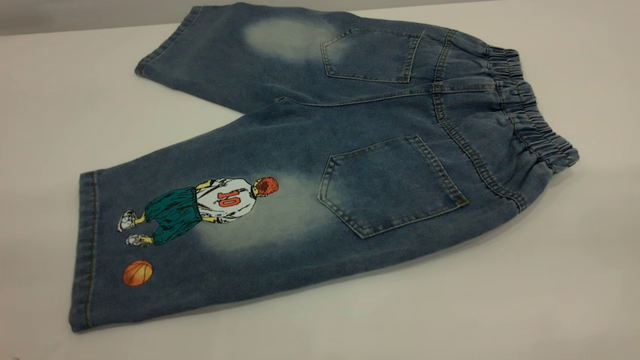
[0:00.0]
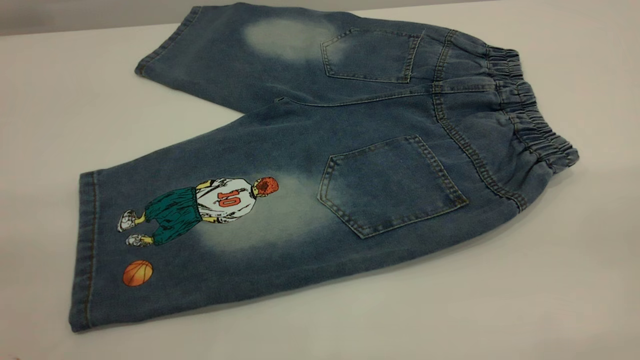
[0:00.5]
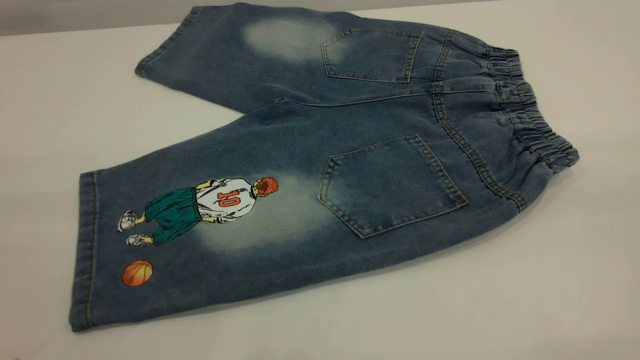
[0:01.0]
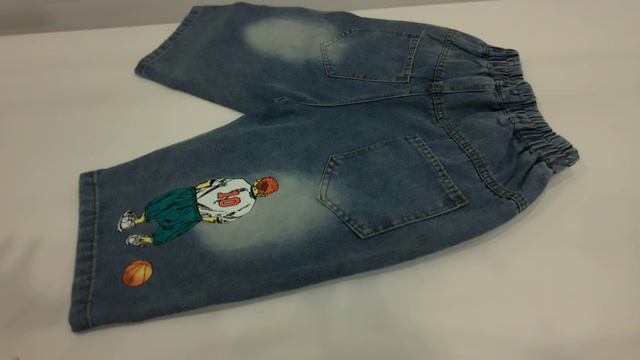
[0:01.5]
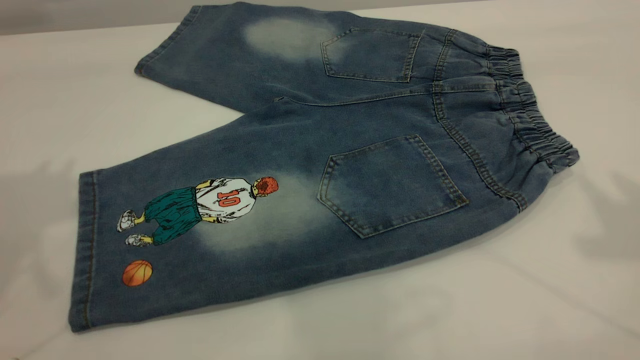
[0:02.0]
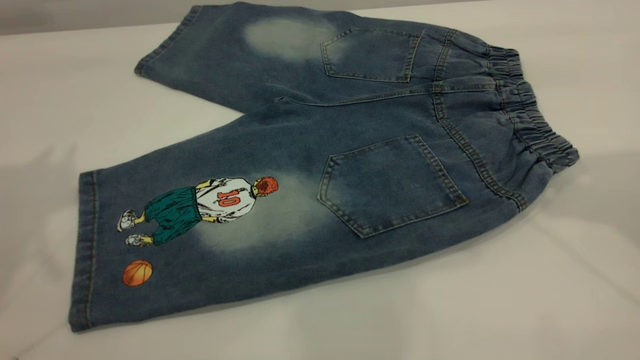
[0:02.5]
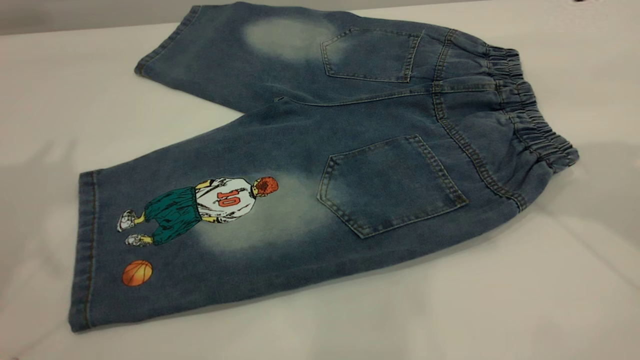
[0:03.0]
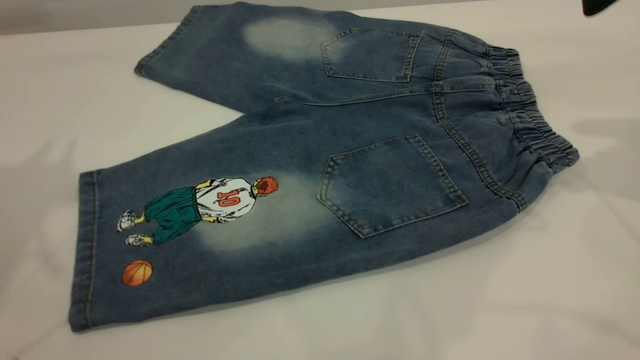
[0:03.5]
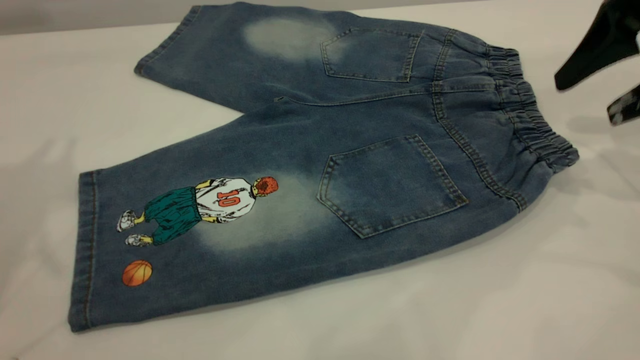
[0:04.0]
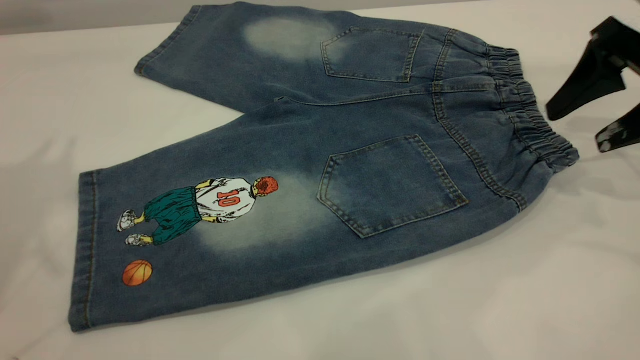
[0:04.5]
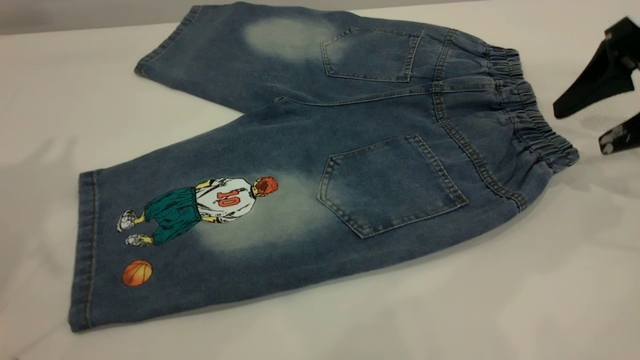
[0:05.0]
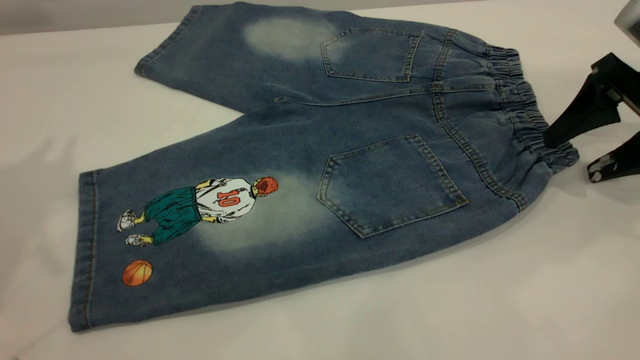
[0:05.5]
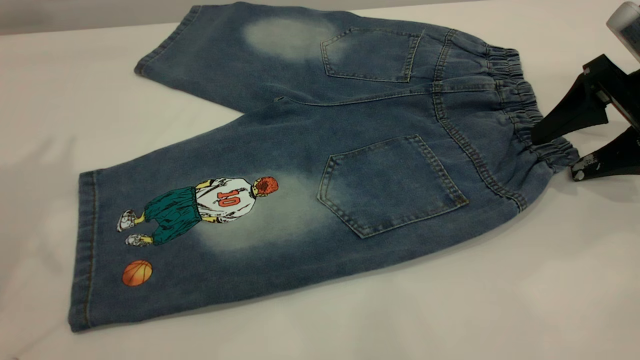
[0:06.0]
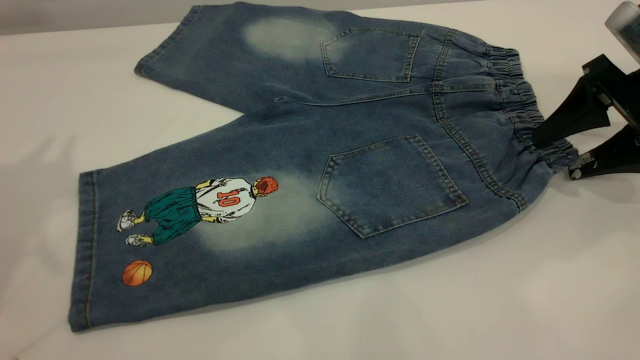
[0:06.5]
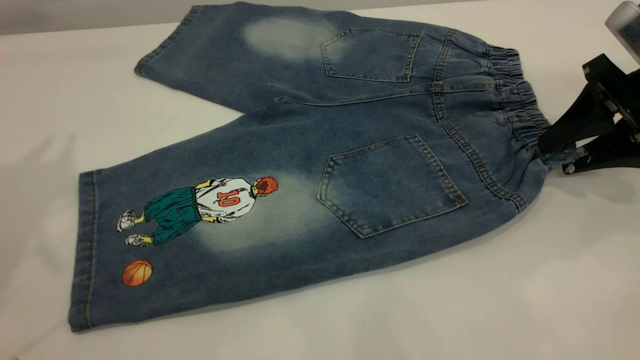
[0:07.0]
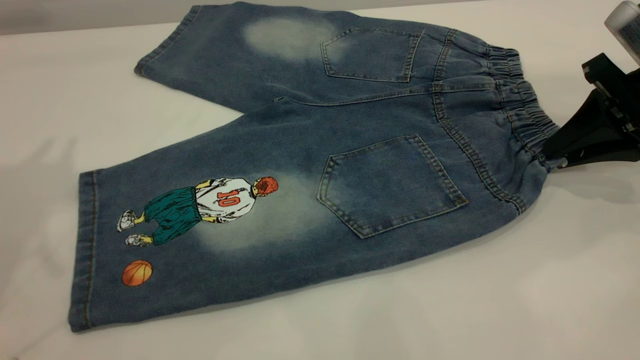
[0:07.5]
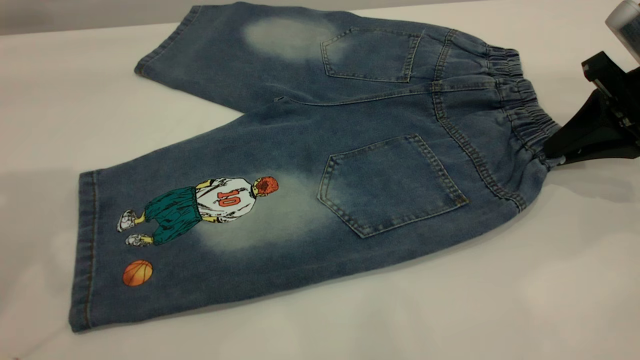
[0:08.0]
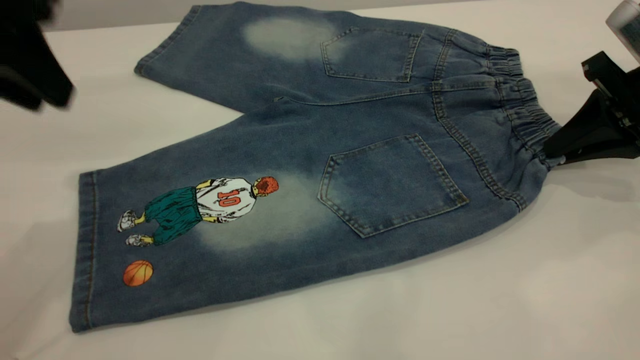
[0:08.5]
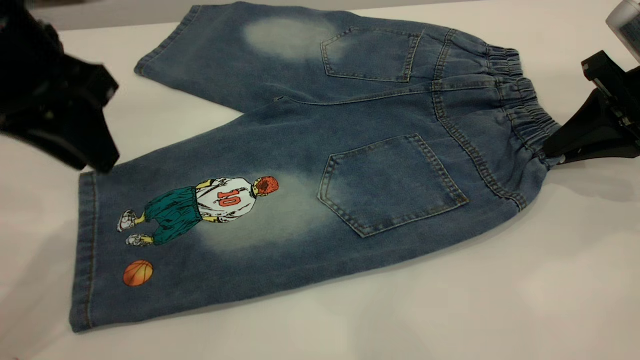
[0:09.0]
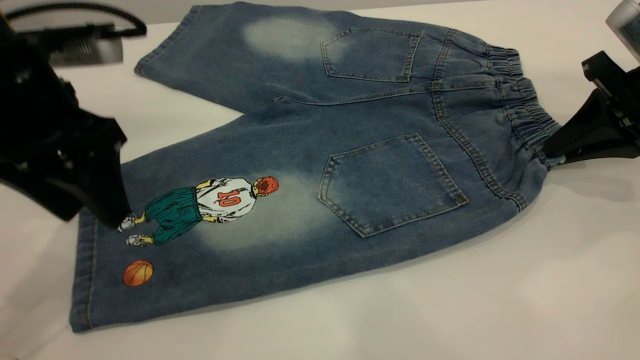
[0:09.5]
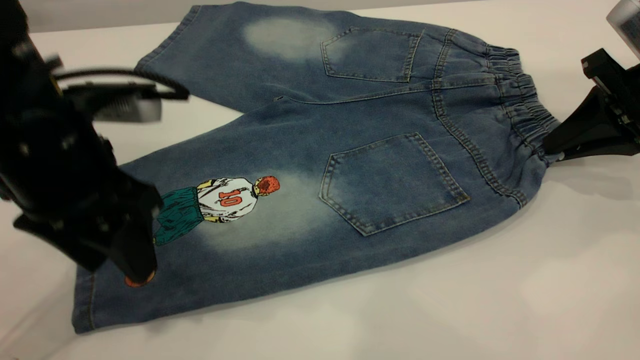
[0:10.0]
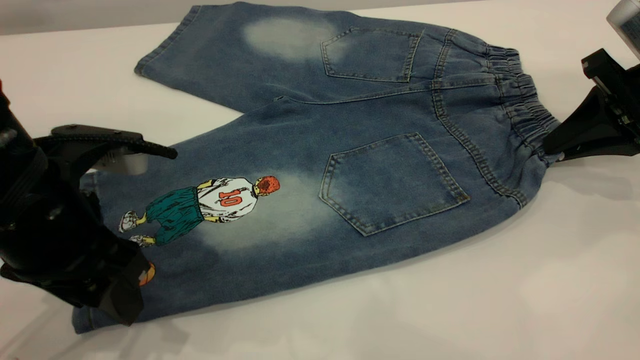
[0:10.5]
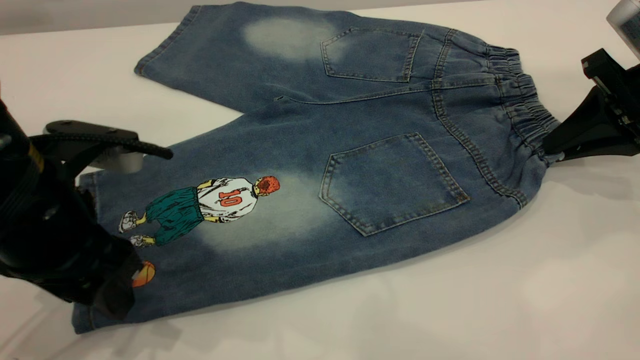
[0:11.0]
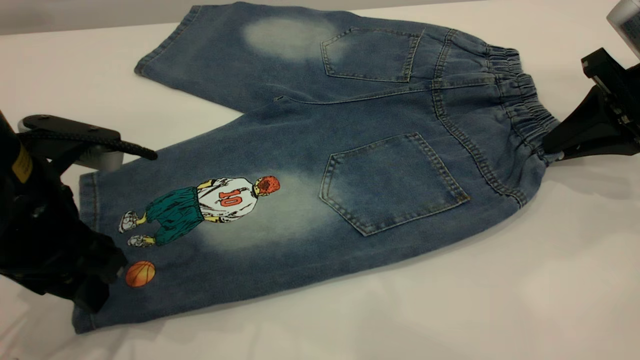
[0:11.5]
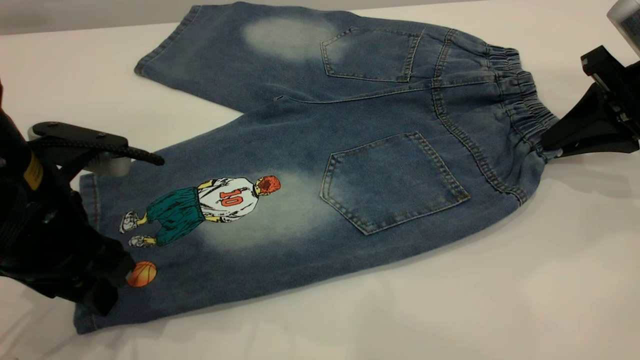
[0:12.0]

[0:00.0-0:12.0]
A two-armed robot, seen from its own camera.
0:02.0 to 0:04.0: The right gripper is displaced downward and forward by about 25 cm, and opens its fingers.
0:04.0 to 0:06.0: The right gripper shifts approximately 5 cm downward.
0:06.0 to 0:08.0: The right gripper closes its fingers.
0:08.0 to 0:10.0: The left gripper moves downward and to the right, some 20 cm, and opens up.
0:10.0 to 0:12.0: The grippers make only small movements.

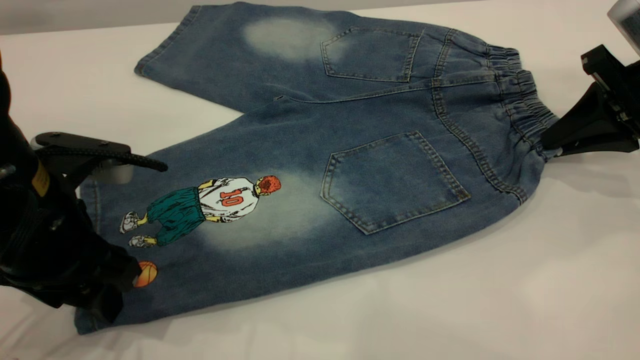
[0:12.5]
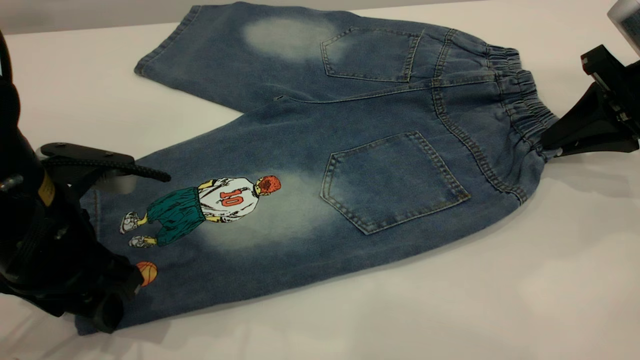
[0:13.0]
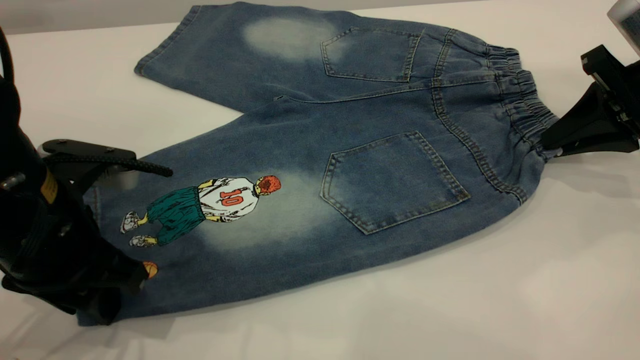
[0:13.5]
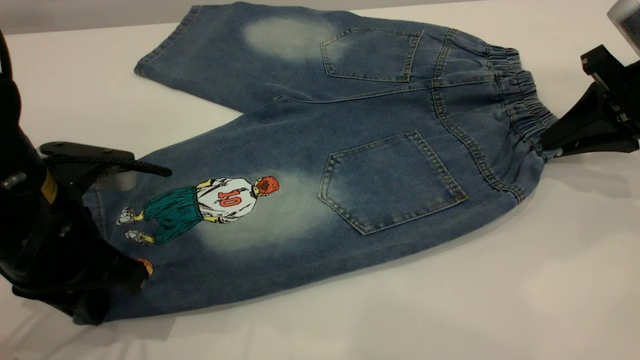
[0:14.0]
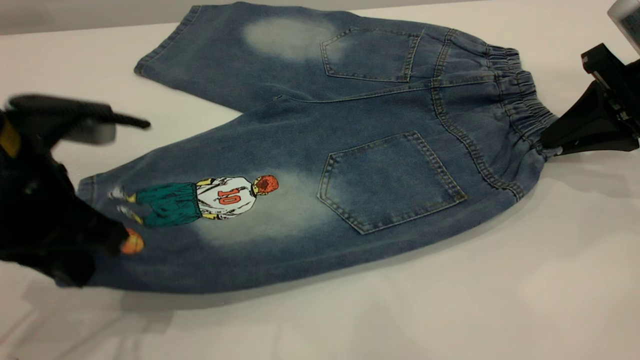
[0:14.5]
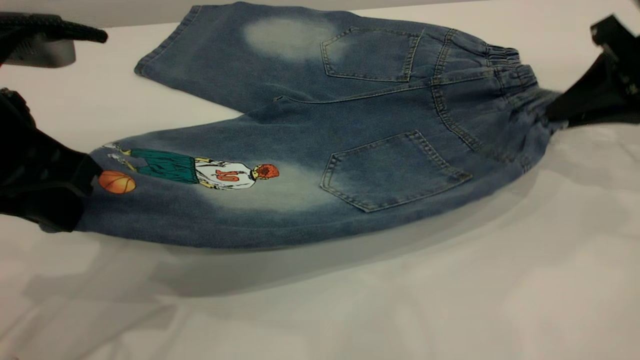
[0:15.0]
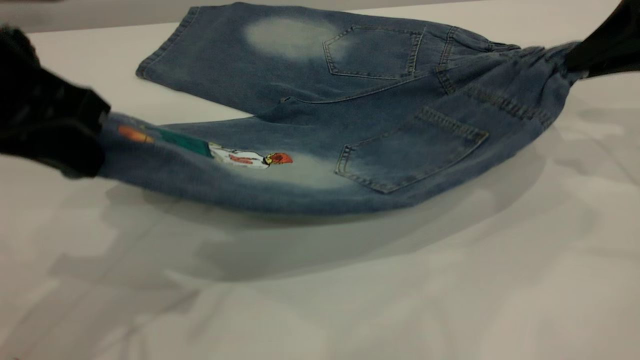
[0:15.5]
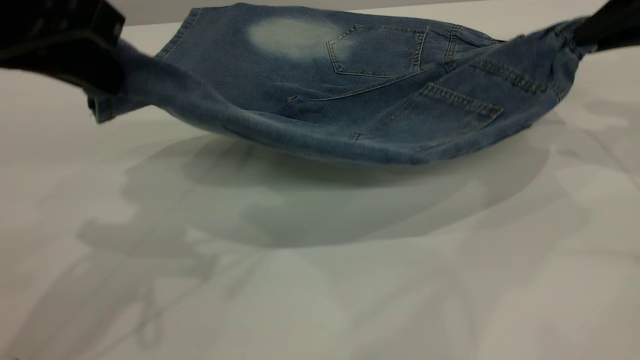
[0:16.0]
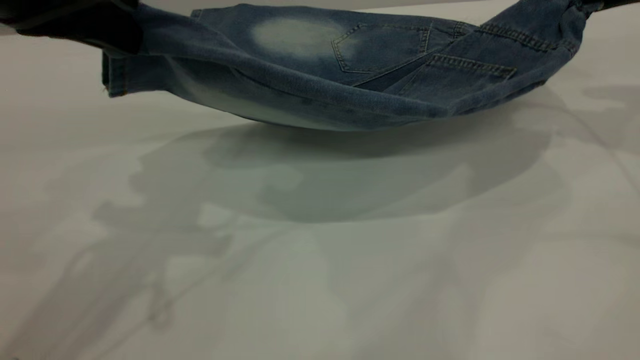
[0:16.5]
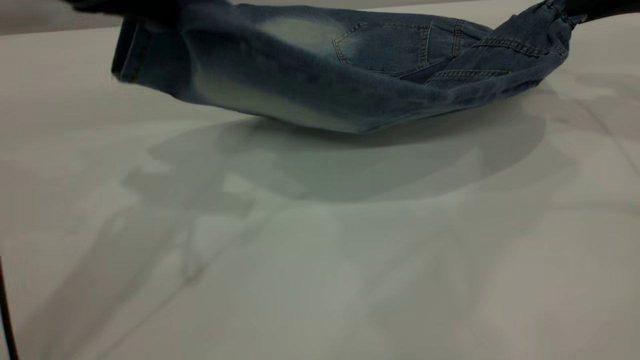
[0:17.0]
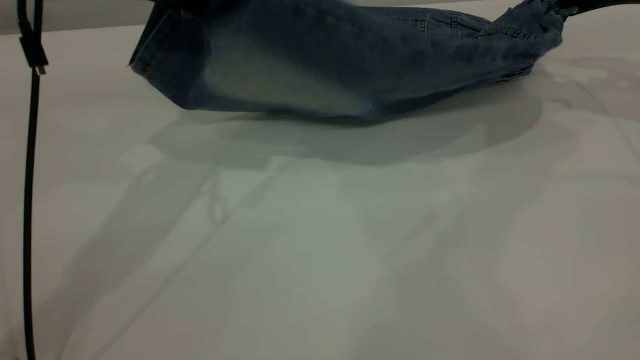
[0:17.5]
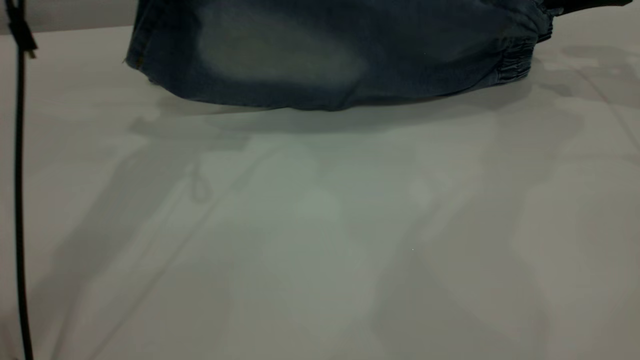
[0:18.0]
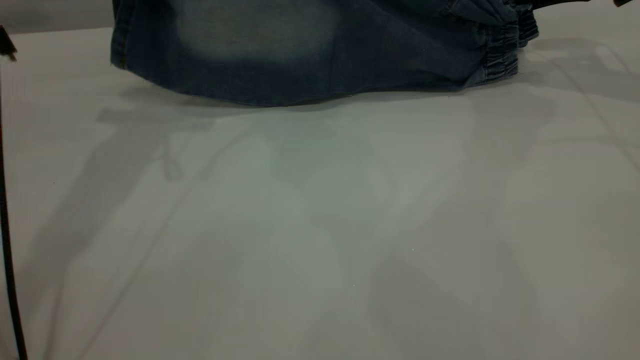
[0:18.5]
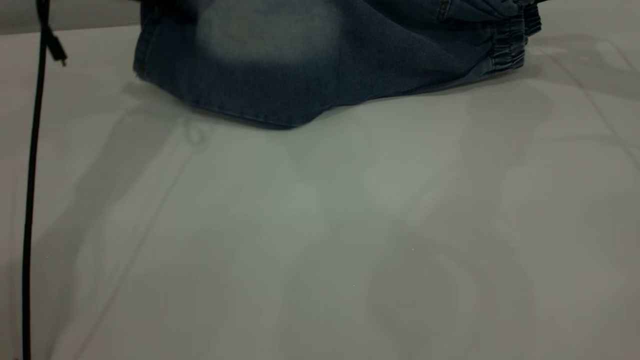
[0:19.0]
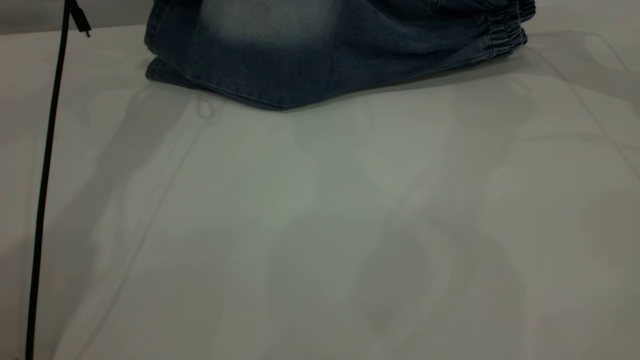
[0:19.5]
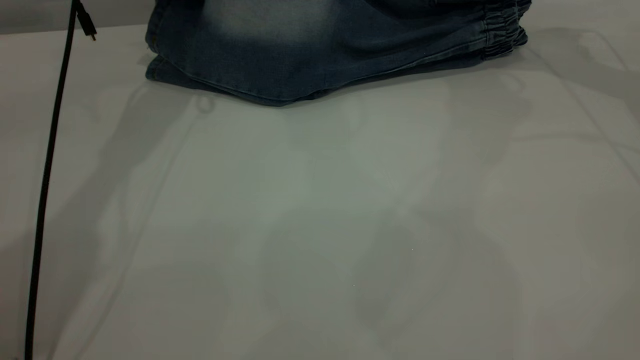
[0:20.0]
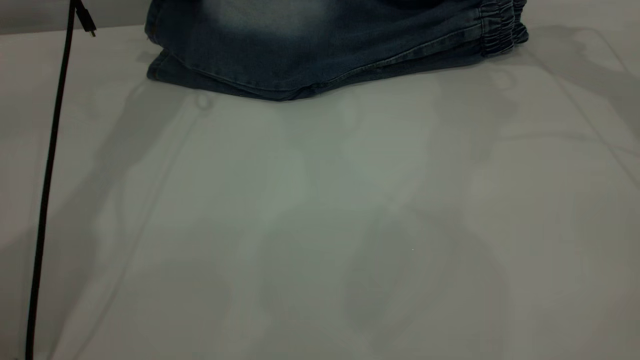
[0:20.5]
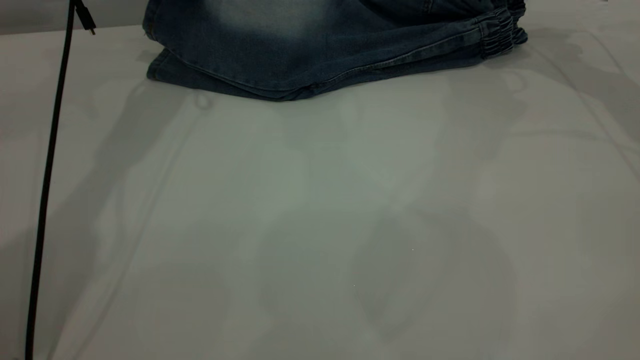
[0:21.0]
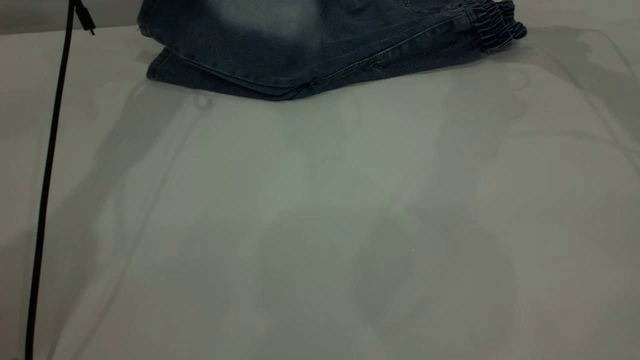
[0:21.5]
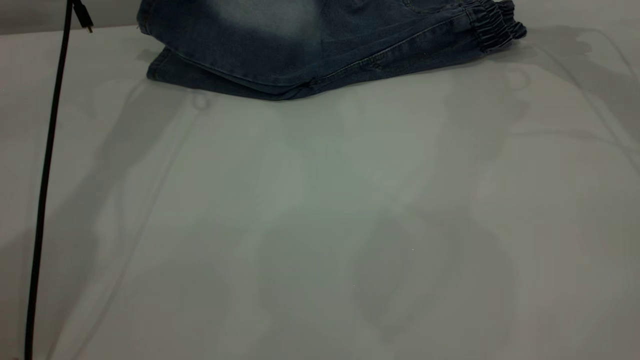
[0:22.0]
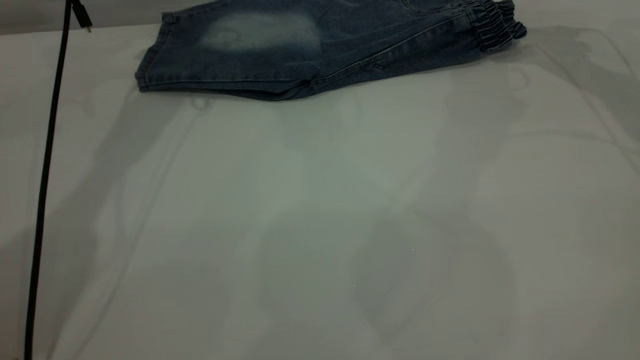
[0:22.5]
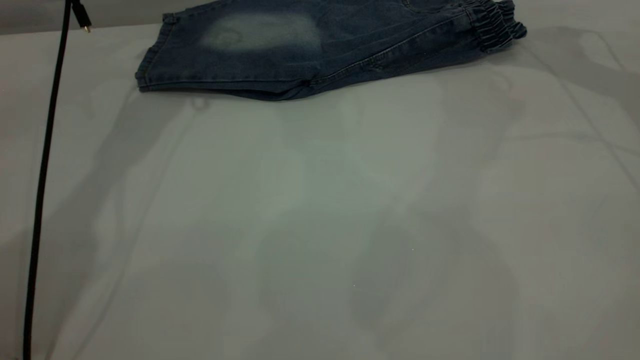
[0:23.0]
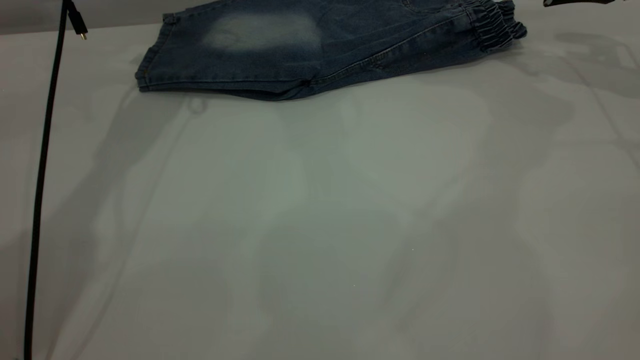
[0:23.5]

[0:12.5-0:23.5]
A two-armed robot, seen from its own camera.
Step, 0:12.5 to 0:22.5: Fold the bottom of the pants upward.
0:12.5 to 0:14.5: The left gripper closes its fingers.
0:14.5 to 0:16.0: Both grippers move upward, approximately 10 cm.
0:16.0 to 0:18.0: The two grippers go approximately 10 cm forward.
0:18.0 to 0:20.0: The left gripper travels forward and downward by approximately 15 cm. The right gripper changes place by about 5 cm.
0:20.0 to 0:21.5: The right gripper opens.
0:21.5 to 0:23.5: The right gripper changes place by approximately 5 cm, while the left gripper opens.
